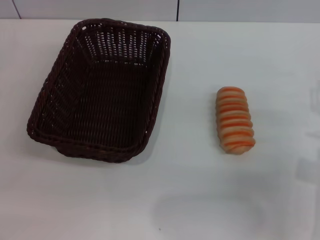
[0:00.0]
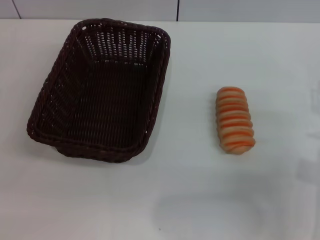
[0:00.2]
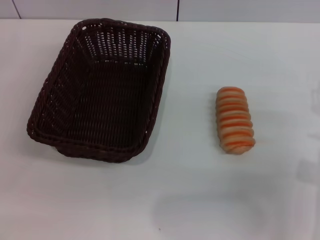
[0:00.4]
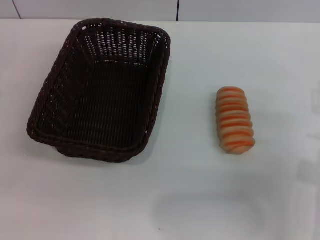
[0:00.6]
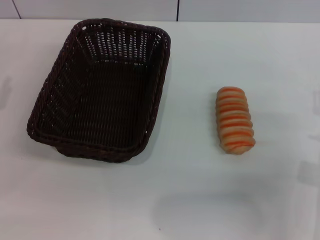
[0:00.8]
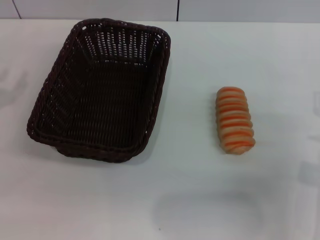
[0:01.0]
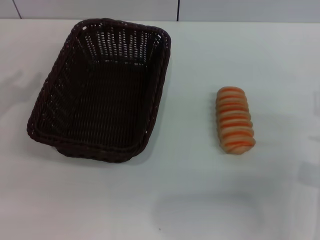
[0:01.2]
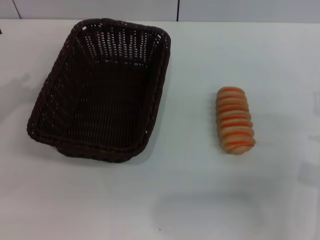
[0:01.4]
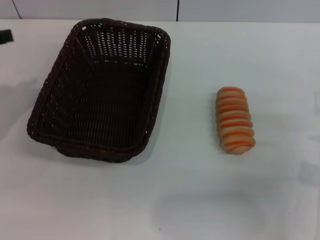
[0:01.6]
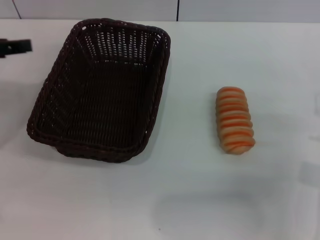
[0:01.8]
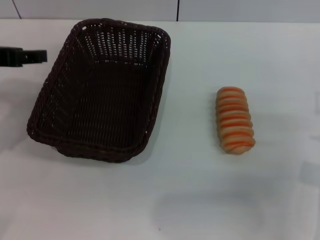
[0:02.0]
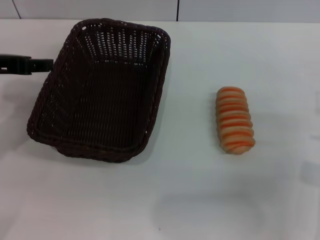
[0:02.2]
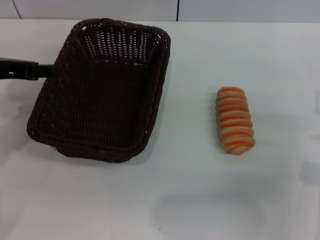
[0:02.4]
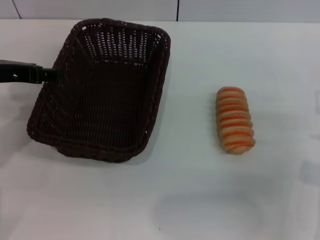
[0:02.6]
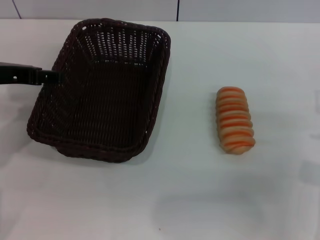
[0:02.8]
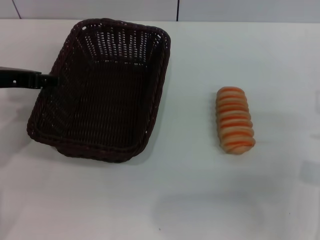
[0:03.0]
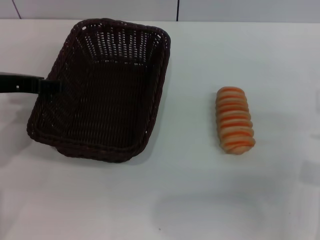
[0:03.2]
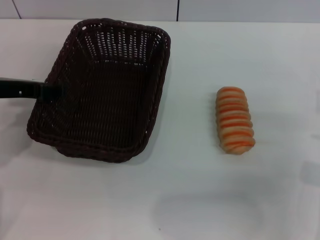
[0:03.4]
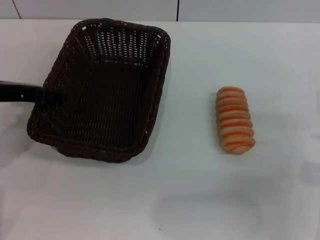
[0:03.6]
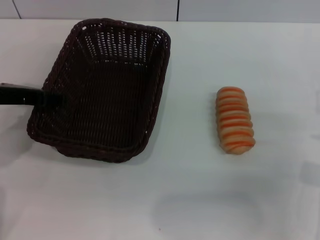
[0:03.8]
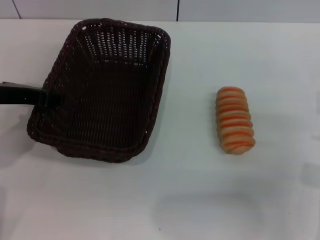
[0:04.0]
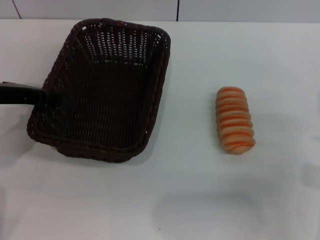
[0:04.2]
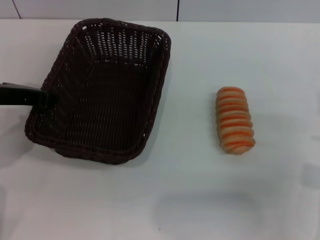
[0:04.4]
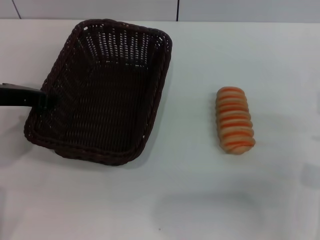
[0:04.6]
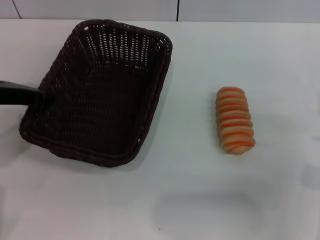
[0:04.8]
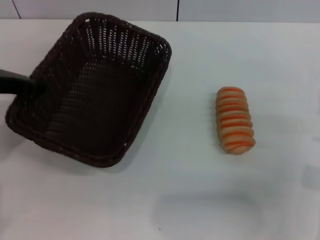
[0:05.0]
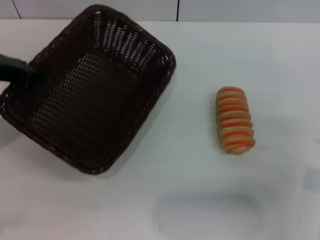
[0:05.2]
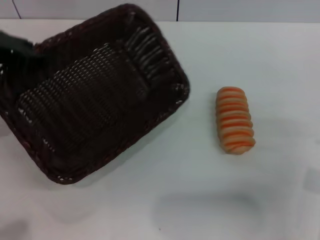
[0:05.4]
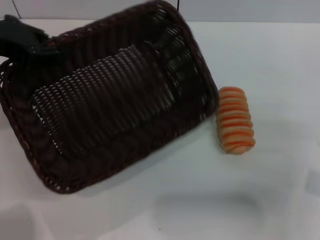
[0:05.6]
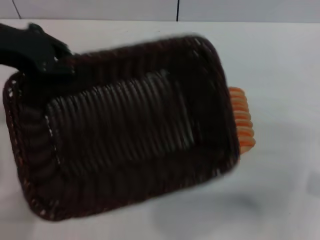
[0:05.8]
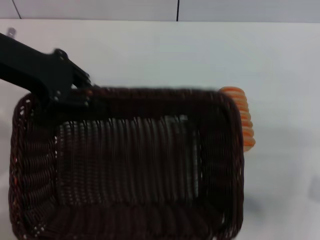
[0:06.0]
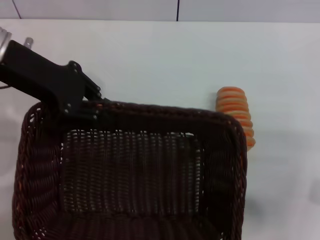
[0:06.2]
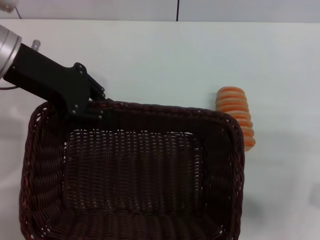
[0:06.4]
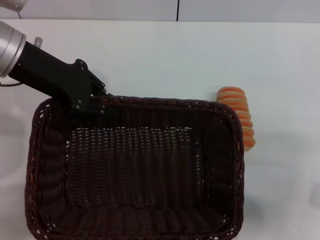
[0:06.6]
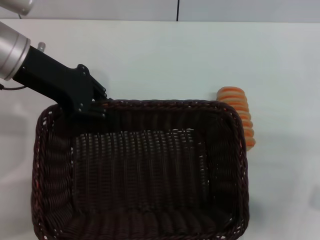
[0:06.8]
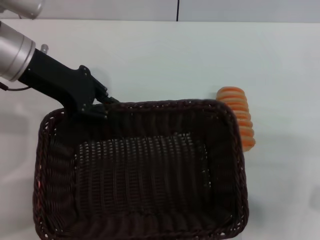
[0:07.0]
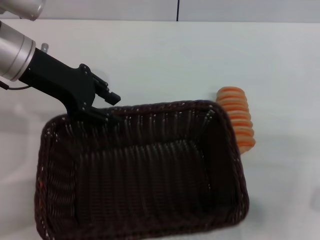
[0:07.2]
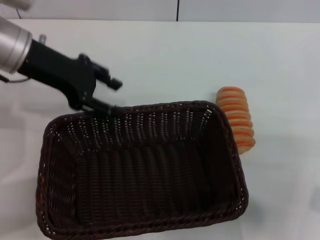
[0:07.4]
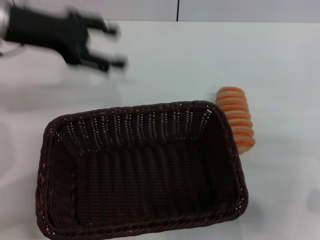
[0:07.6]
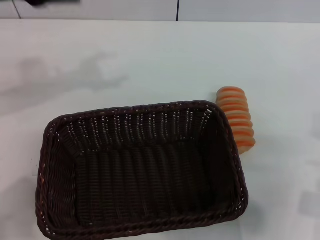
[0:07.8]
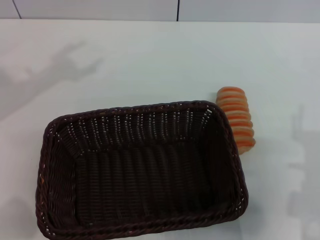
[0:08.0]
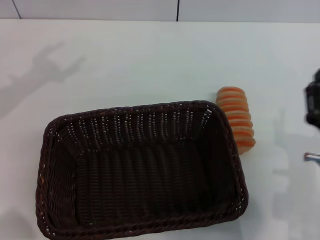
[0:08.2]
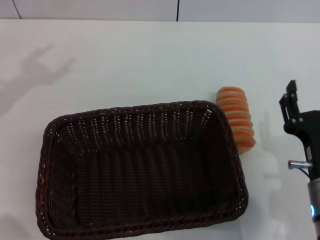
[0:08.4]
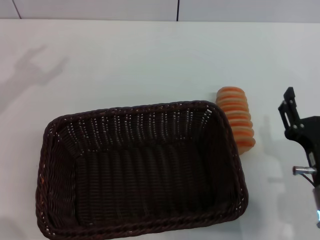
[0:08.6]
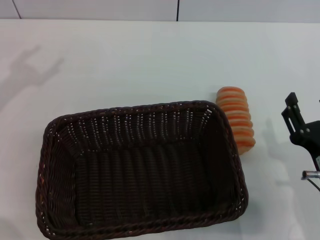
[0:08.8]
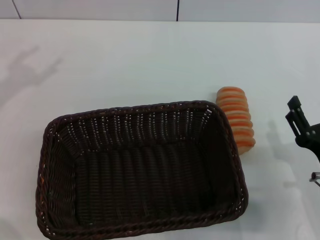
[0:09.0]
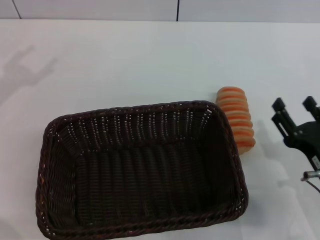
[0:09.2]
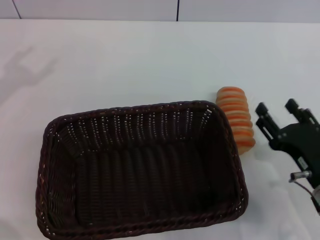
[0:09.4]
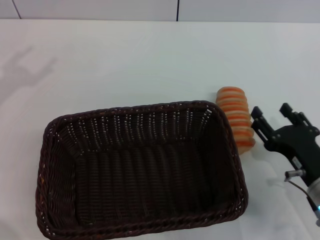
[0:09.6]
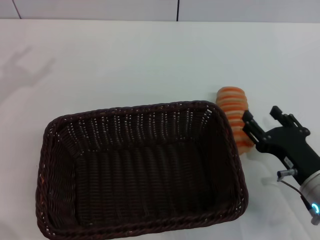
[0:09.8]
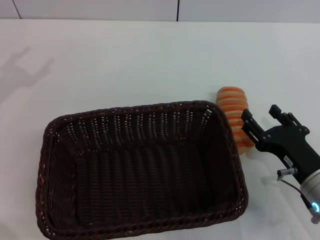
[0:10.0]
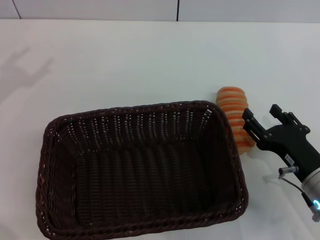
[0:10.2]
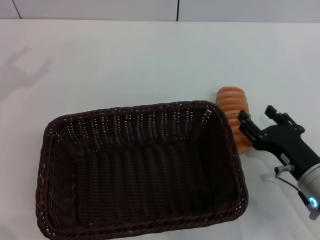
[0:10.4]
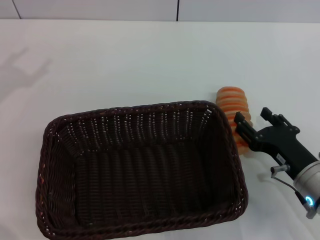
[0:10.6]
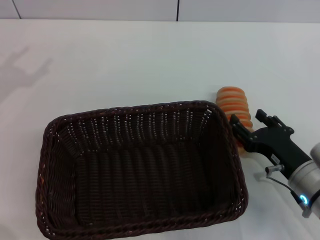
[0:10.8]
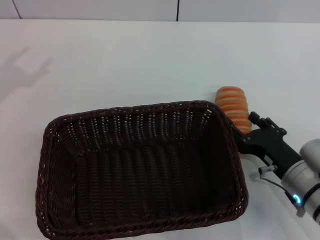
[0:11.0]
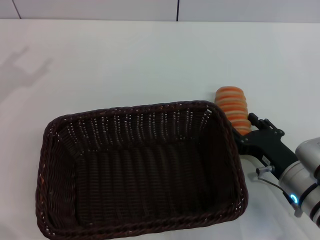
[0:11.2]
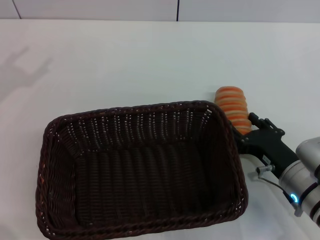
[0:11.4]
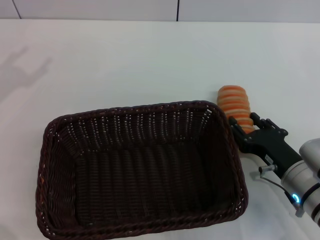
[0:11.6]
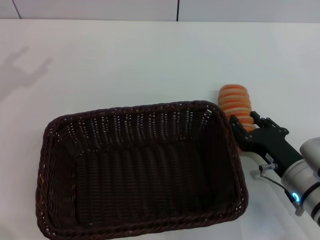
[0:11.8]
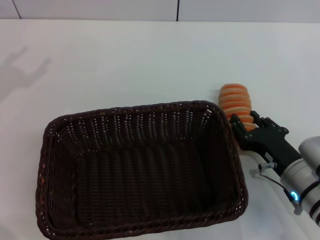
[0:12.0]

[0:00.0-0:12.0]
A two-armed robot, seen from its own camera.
Step, 0:00.0 to 0:05.0: Pick up the dark basket with the left gripper.
Step, 0:05.2 to 0:07.4: Place the dark basket in the center of view with the left gripper.
0:01.6 to 0:03.0: The left gripper is displaced to the right by about 5 cm.
0:03.0 to 0:04.4: The left gripper closes its fingers.
0:04.4 to 0:06.0: The left gripper travels upward by some 10 cm.
0:06.0 to 0:07.6: The left gripper opens its fingers.
0:07.6 to 0:09.0: The left gripper goes roughly 15 cm to the left and backward.
0:09.0 to 0:10.4: The grippers stay close to where they were, moving slightly.
0:10.4 to 0:12.0: The right gripper closes its fingers.

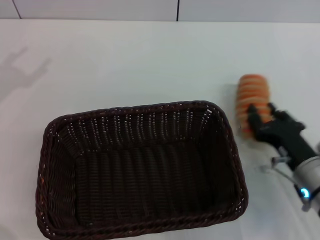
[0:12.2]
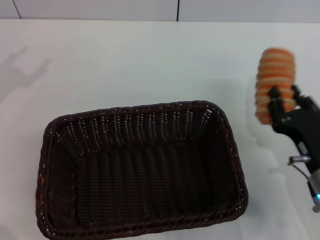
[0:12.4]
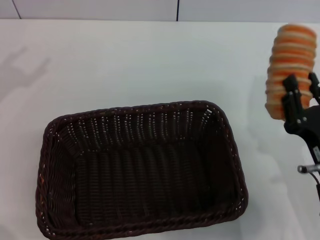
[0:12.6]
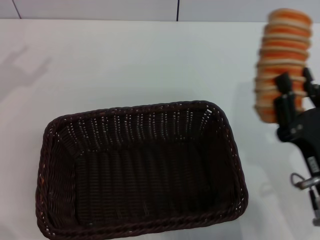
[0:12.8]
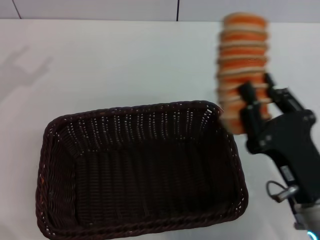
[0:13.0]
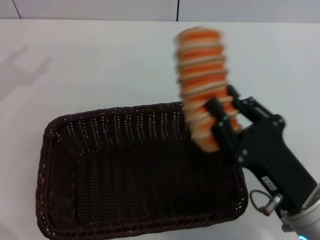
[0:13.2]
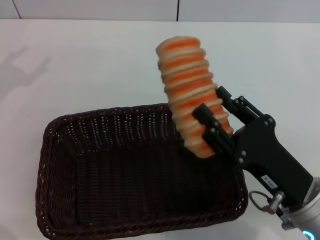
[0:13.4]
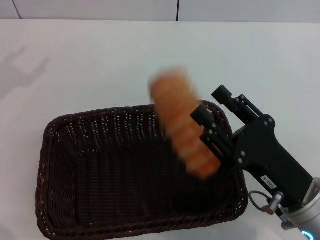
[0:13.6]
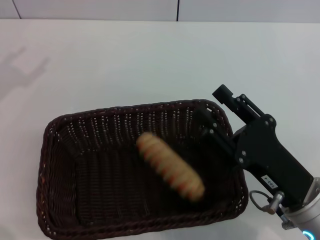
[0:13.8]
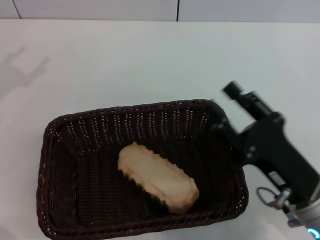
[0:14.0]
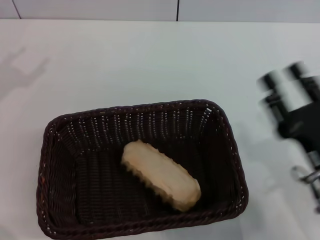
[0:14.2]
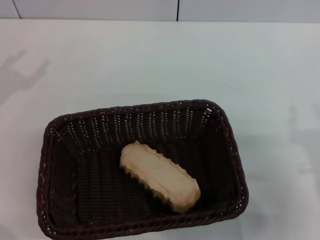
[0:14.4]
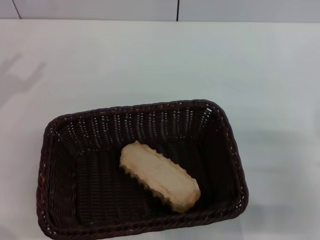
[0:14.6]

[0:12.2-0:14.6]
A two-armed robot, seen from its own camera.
Step, 0:12.6 to 0:13.8: Place the long bread into the dark basket with the right gripper.
0:12.2 to 0:13.4: The right gripper goes about 5 cm backward and upward, and closes its fingers.
0:13.4 to 0:14.6: The right gripper moves to the right, approximately 10 cm, and opens up, while the left gripper ends up approximately 5 cm from where it was.
